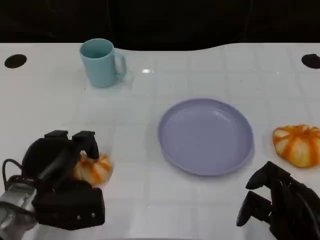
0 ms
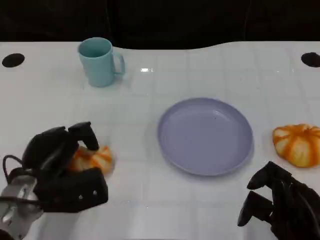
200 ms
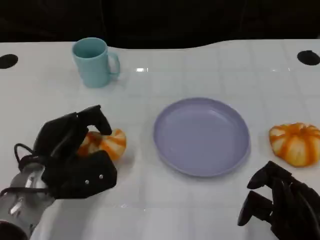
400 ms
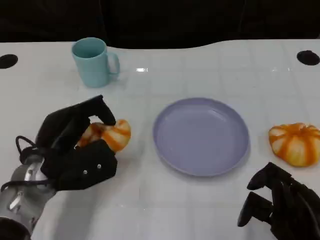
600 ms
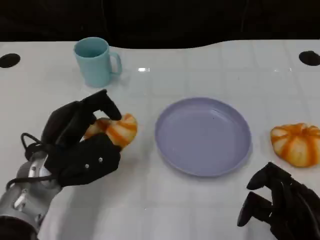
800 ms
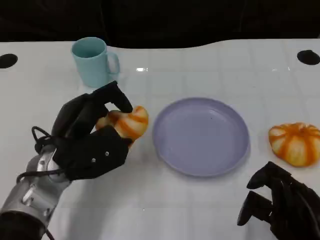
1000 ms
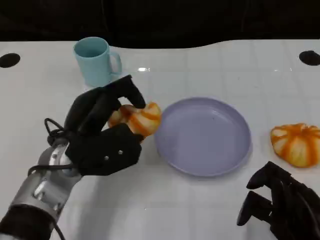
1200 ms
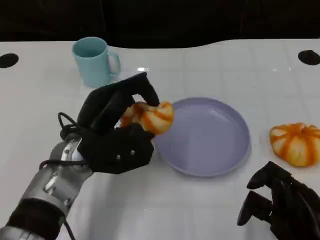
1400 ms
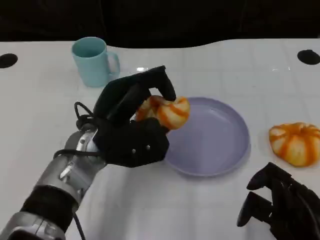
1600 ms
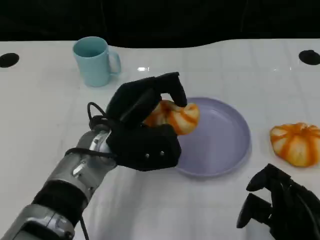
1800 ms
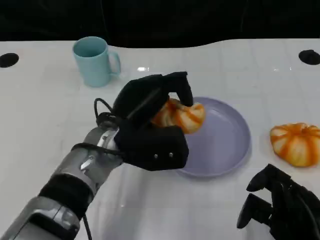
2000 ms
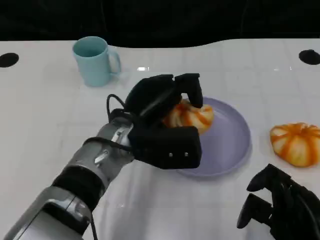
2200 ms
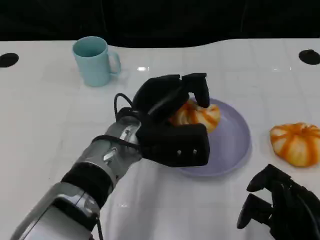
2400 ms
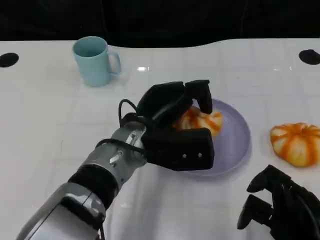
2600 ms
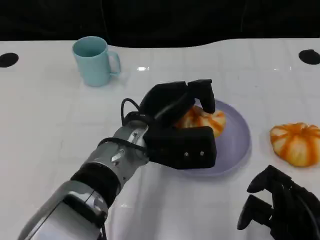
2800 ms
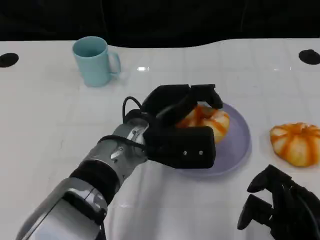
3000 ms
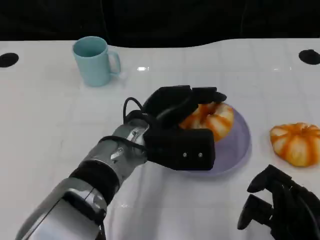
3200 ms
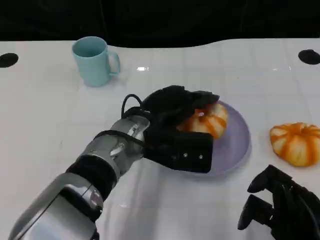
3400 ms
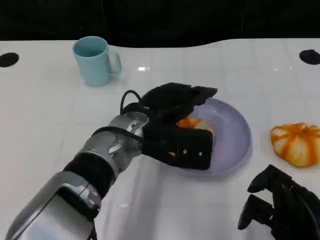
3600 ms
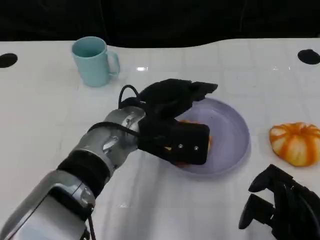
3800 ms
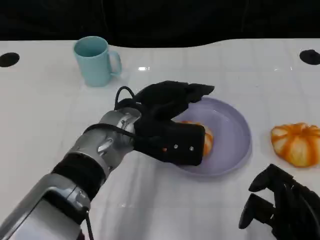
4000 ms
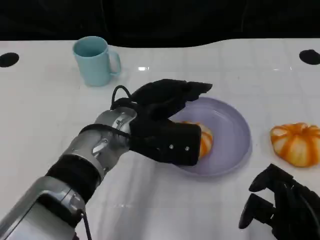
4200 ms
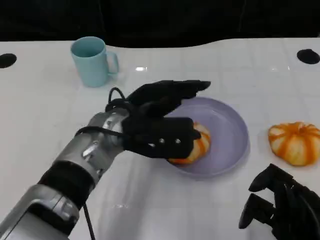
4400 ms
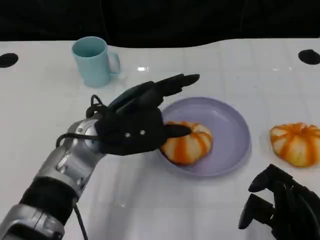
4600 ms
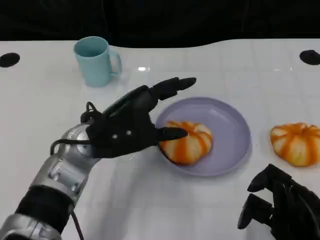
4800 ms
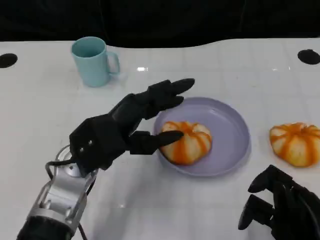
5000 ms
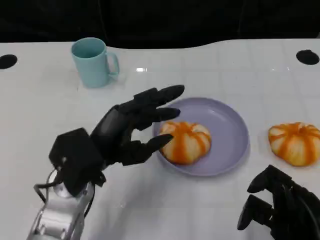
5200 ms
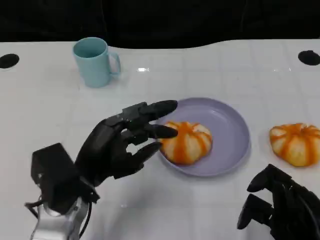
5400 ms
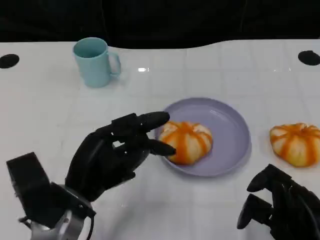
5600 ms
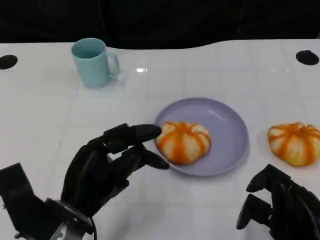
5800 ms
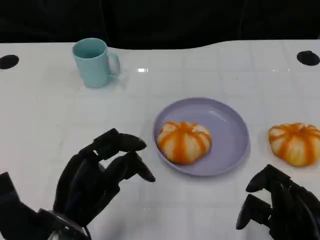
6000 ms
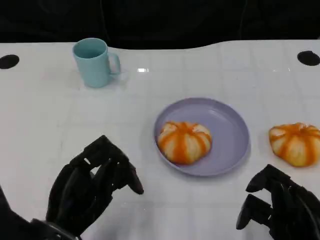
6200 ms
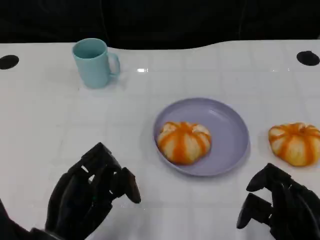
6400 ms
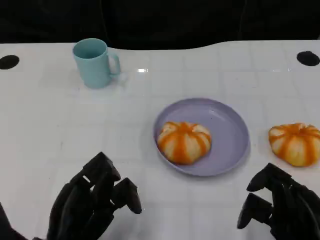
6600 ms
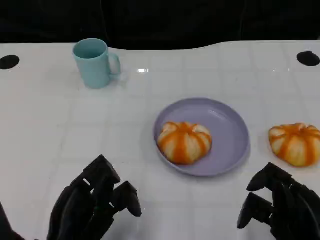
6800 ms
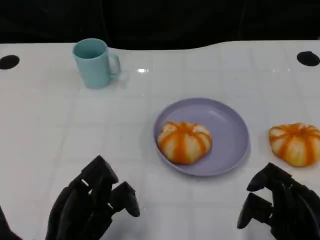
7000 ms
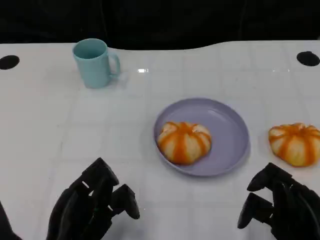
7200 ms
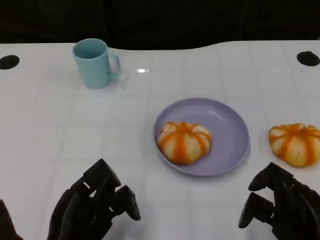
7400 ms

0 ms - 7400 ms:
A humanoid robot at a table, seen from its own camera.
Task of the whole recording: Grasp the bread from the table and place it into the plate.
0 ms - 1400 ms: The left hand heads to the right and upward, covering some 10 cm.
1400 ms - 3000 ms: The left hand travels to the right by approximately 10 cm.
4400 ms - 6000 ms: The left hand shifts some 15 cm backward, to the left and downward.
6000 ms - 7400 ms: The hands make only small movements.

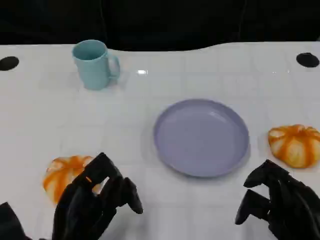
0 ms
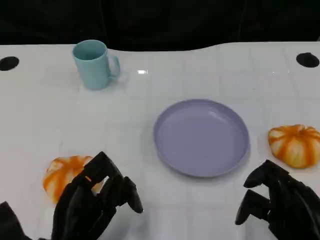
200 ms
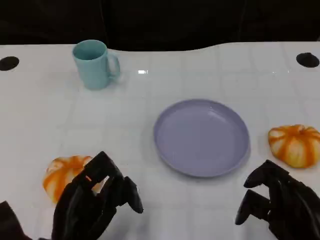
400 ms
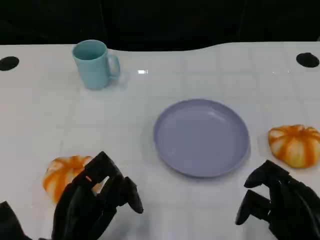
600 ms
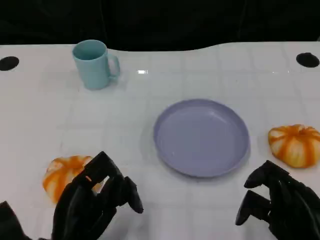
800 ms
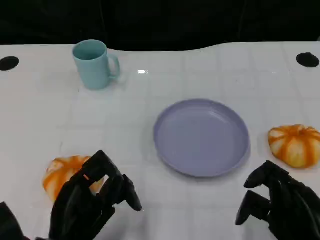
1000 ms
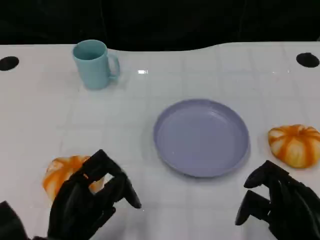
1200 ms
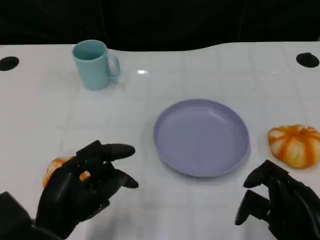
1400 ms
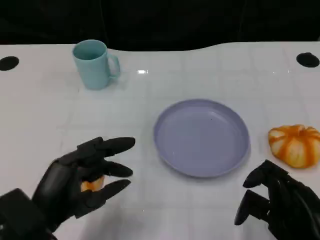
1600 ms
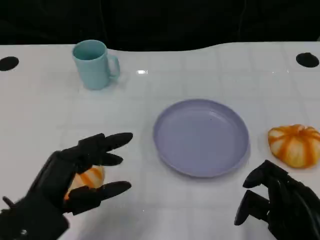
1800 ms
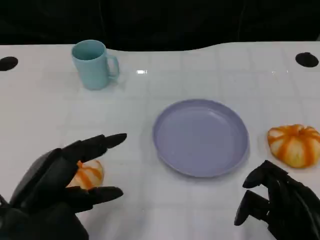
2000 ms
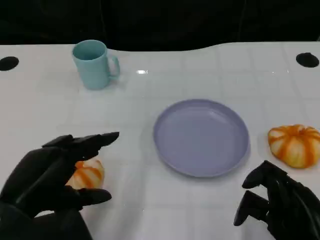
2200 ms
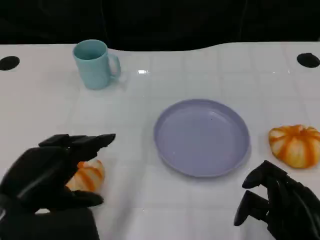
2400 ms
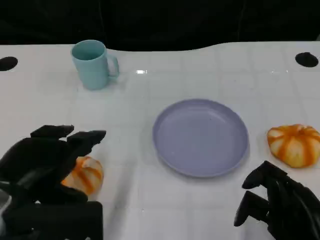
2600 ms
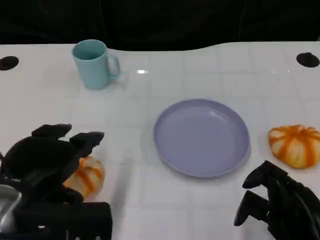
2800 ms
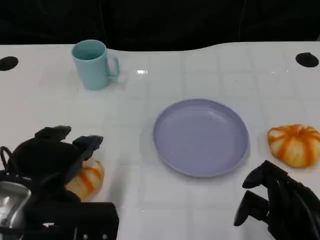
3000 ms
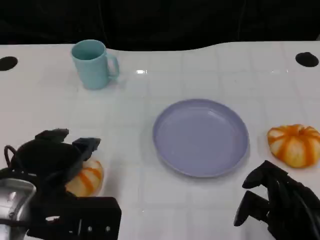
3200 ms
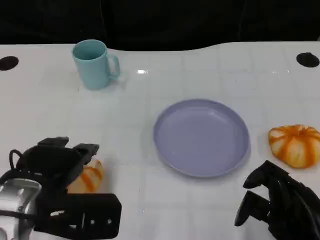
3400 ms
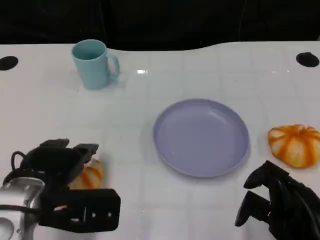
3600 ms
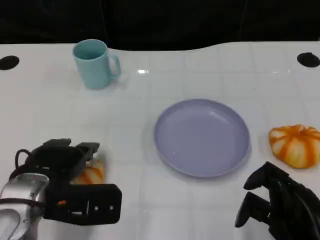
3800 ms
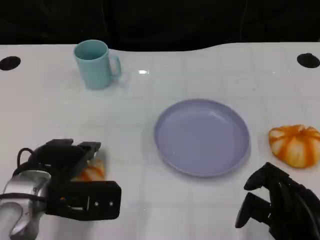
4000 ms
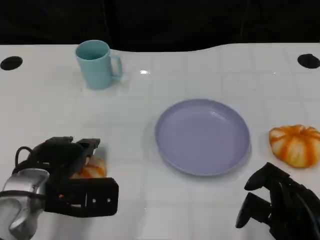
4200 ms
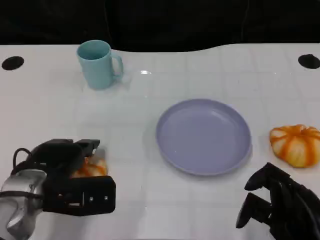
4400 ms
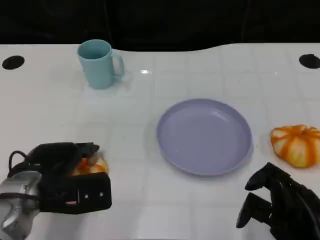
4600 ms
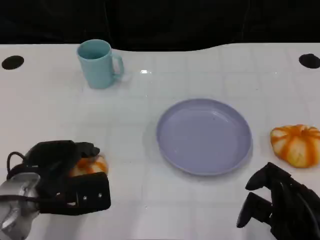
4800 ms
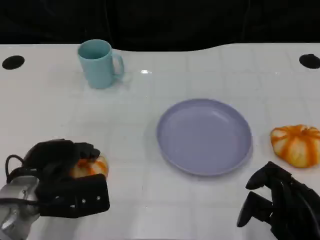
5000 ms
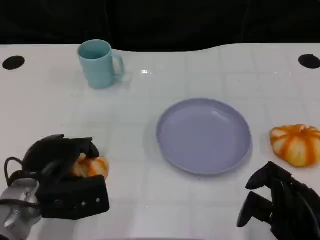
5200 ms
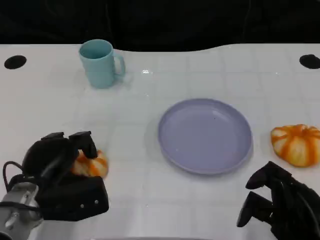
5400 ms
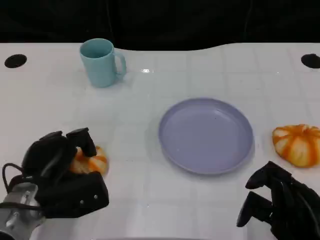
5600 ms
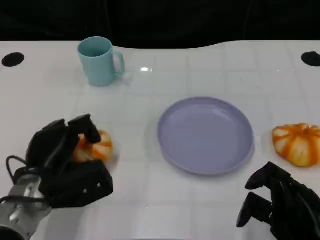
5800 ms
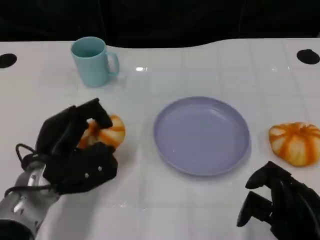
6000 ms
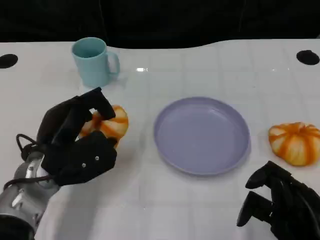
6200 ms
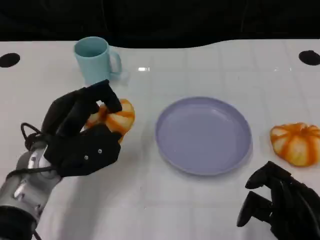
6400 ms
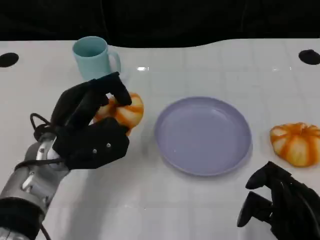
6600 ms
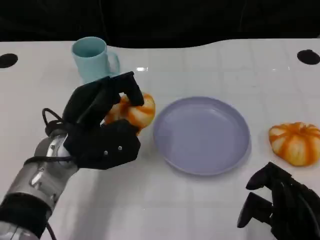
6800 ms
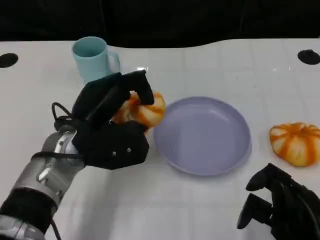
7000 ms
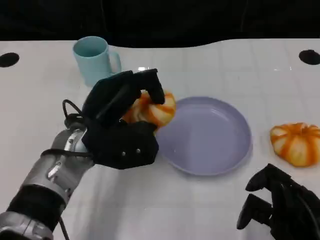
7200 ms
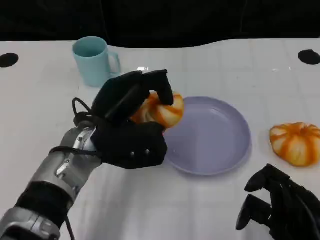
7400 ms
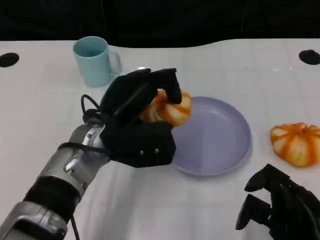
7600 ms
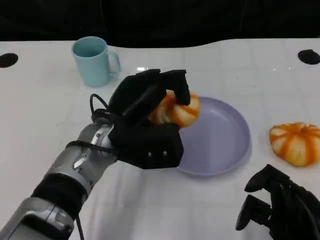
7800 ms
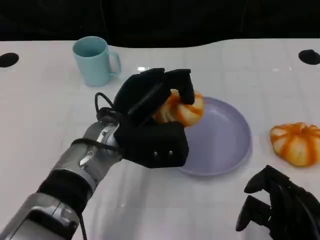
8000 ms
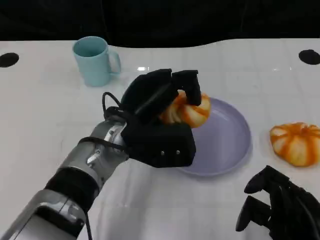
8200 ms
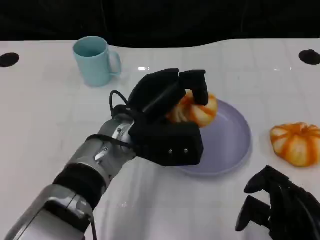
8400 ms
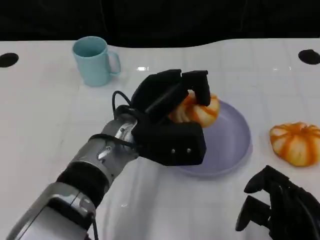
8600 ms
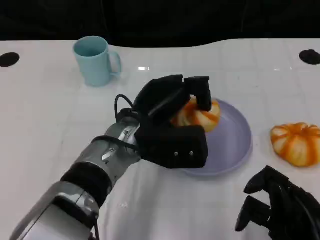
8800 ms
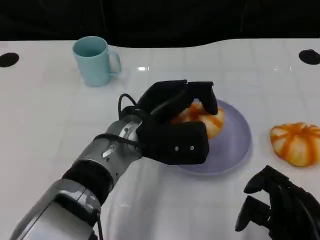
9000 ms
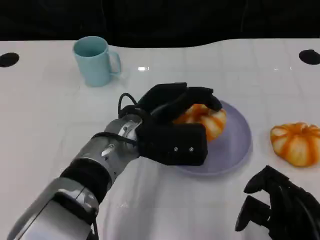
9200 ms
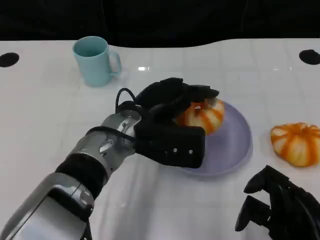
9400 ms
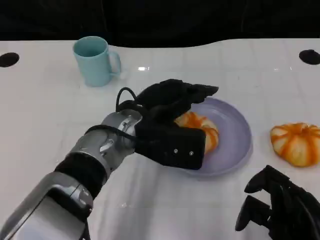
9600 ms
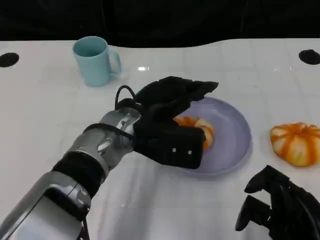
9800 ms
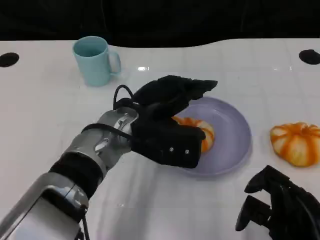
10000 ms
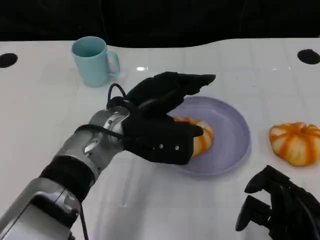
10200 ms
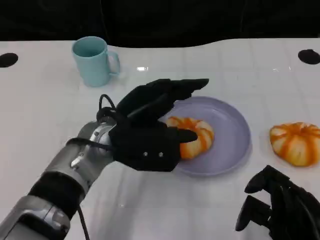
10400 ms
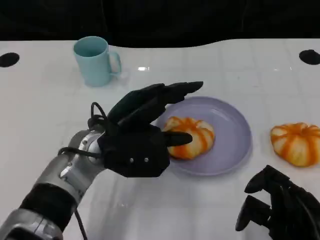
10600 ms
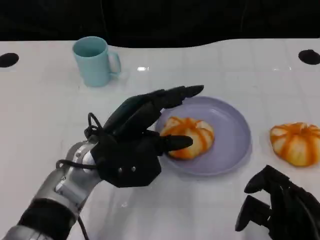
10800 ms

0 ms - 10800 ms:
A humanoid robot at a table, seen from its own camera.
Task of the whole recording: Grasp the bread from the table and place it into the plate.
0 ms - 1600 ms: The left hand is displaced upward by about 5 cm.
1600 ms - 3000 ms: The left hand shifts roughly 5 cm upward.
3000 ms - 4600 ms: The left hand travels downward and forward by approximately 10 cm.
6200 ms - 7800 ms: The left hand moves to the right, roughly 10 cm.
9200 ms - 10800 ms: The left hand is displaced to the left by approximately 5 cm.

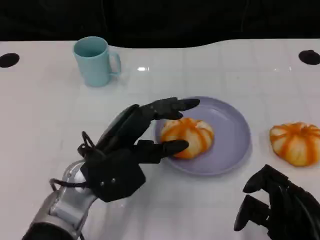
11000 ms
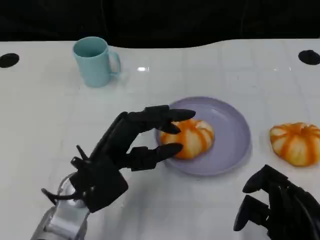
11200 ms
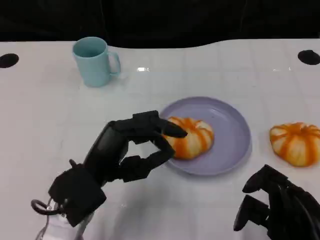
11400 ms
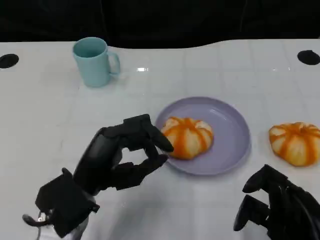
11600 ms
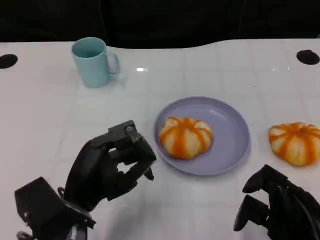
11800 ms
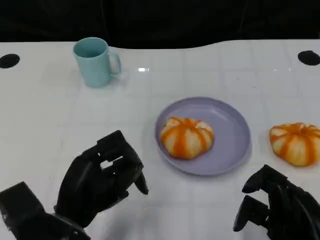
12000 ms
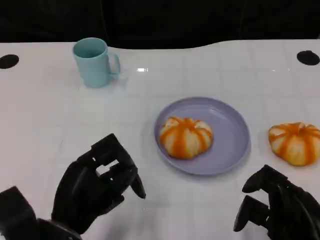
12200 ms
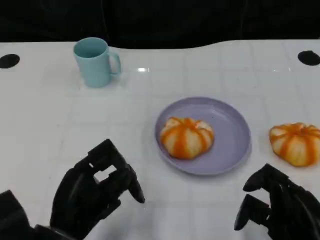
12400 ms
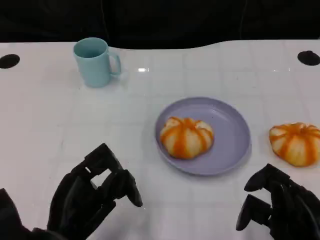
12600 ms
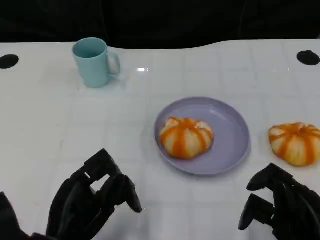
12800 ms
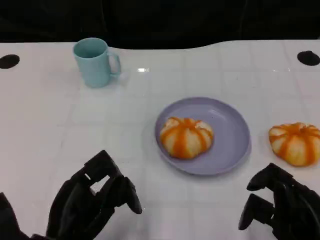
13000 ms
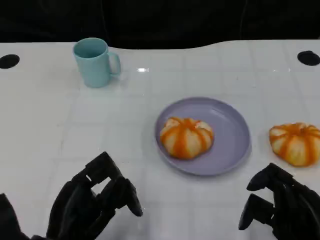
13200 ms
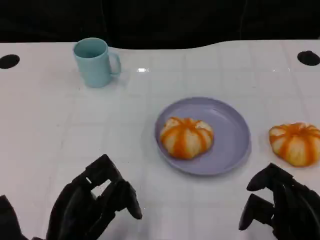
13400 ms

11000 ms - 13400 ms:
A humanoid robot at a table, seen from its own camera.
Task of the whole recording: Grasp the bread from the table and place it into the plate.
11000 ms - 12200 ms: The left hand goes approximately 10 cm backward.
12200 ms - 13400 ms: The hands make only small movements.

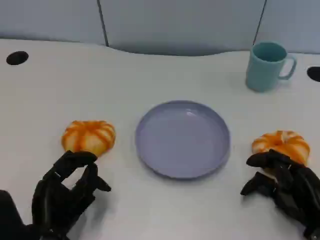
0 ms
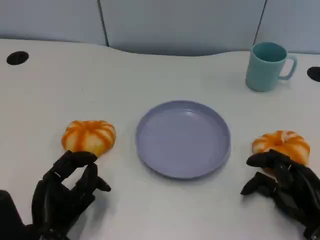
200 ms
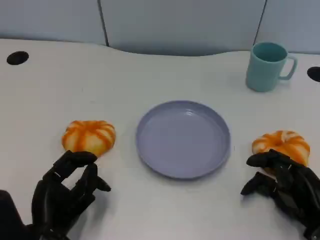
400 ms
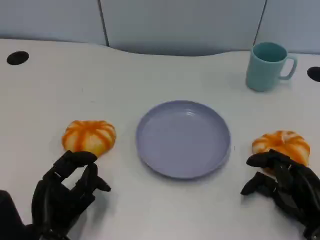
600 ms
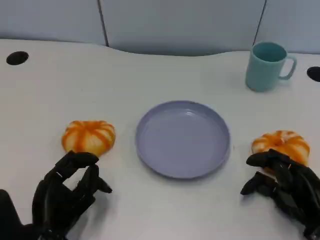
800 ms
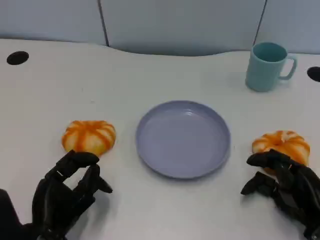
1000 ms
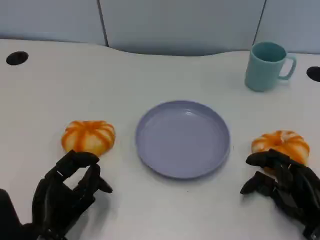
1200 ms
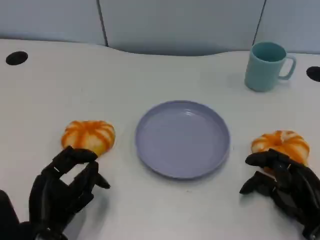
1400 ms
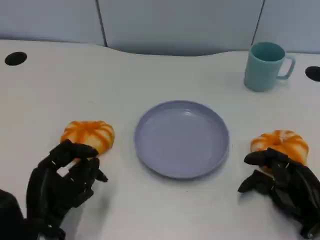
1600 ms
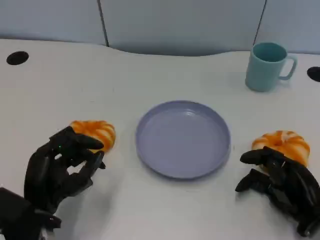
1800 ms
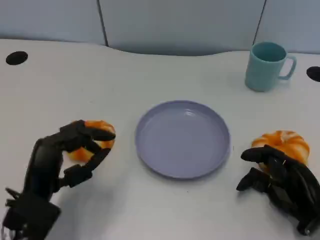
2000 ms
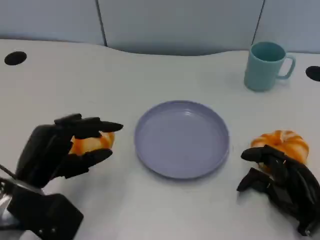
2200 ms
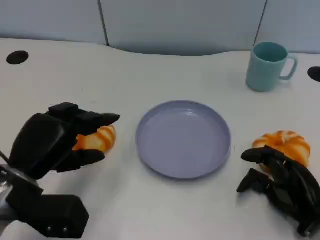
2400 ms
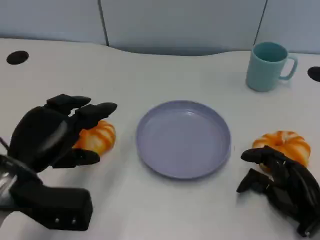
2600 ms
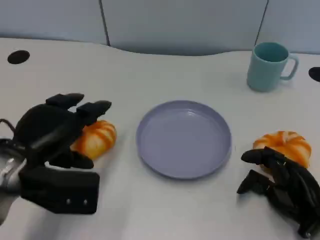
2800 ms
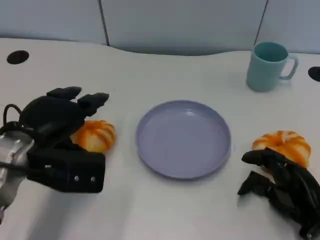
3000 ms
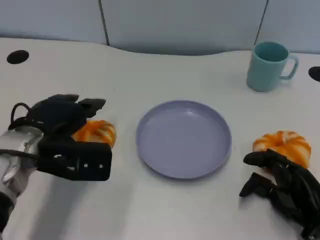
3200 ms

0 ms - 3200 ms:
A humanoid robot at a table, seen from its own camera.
Task of the whole recording: Grasp the bread from the table and place it into the plate.
1600 ms - 3200 ms: The left hand travels forward and upward by some 15 cm.
